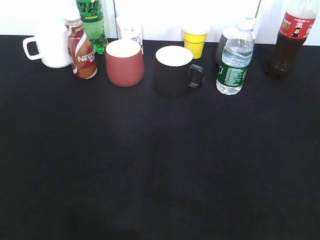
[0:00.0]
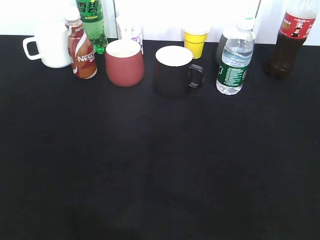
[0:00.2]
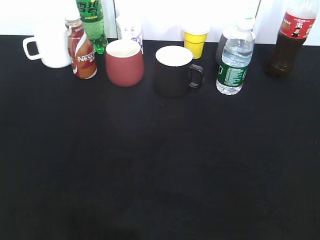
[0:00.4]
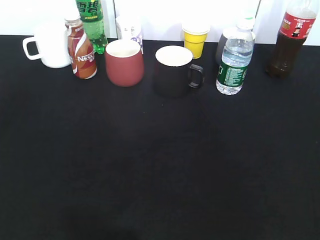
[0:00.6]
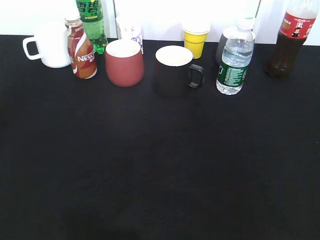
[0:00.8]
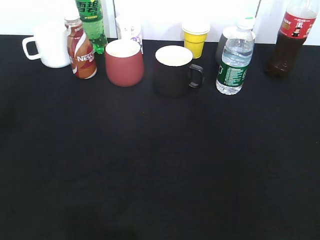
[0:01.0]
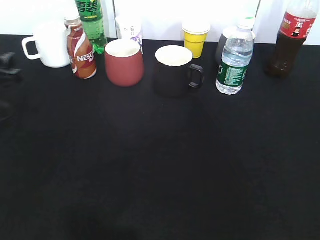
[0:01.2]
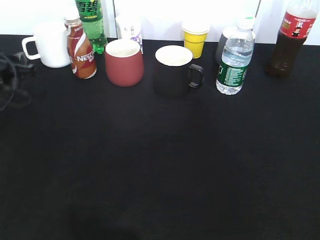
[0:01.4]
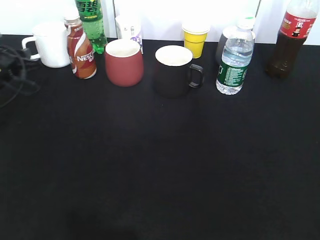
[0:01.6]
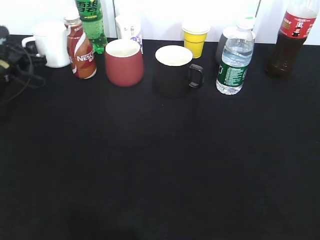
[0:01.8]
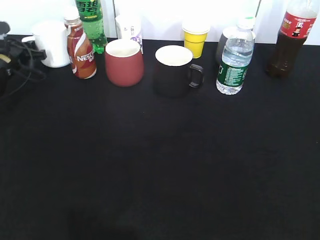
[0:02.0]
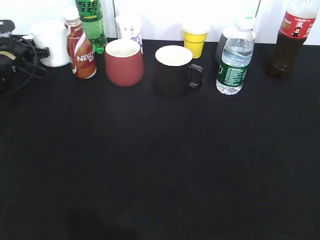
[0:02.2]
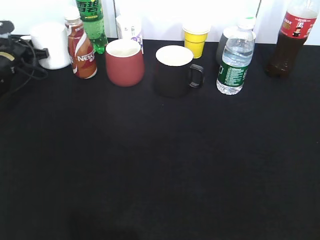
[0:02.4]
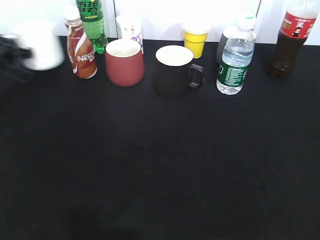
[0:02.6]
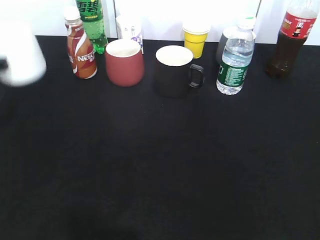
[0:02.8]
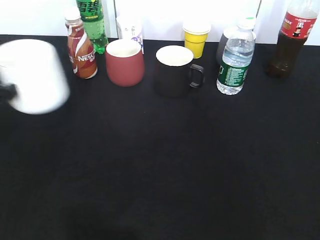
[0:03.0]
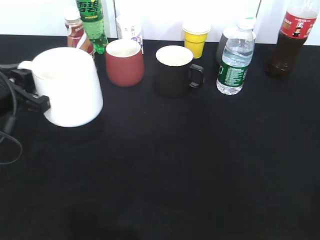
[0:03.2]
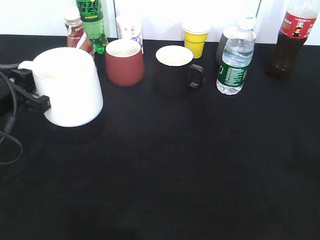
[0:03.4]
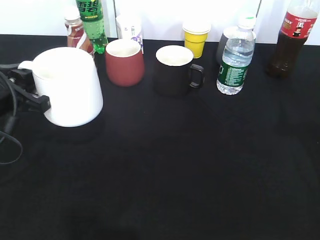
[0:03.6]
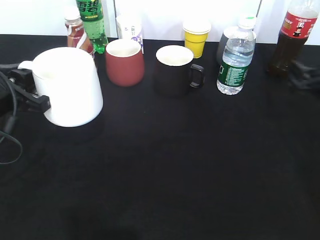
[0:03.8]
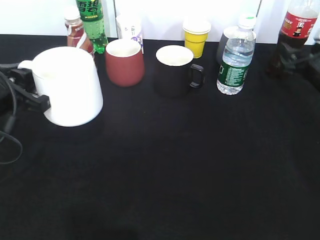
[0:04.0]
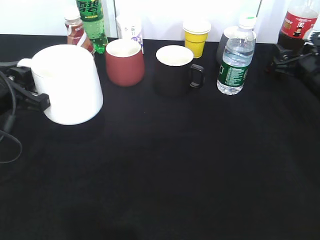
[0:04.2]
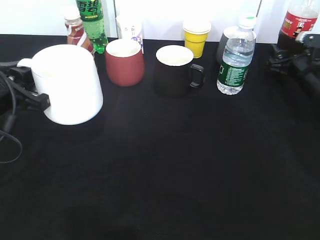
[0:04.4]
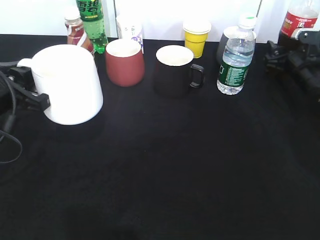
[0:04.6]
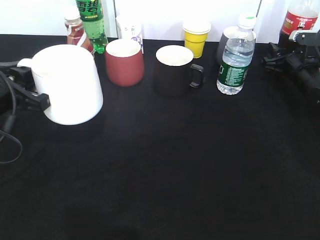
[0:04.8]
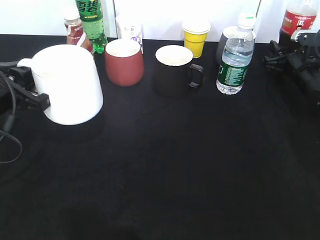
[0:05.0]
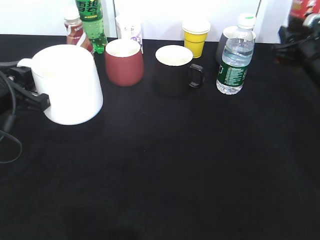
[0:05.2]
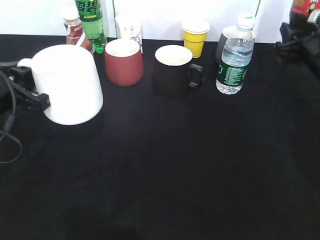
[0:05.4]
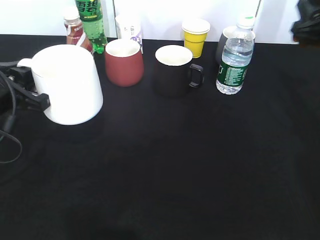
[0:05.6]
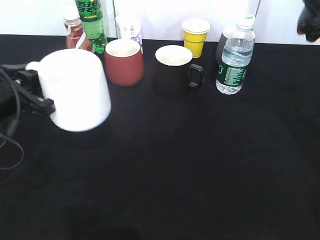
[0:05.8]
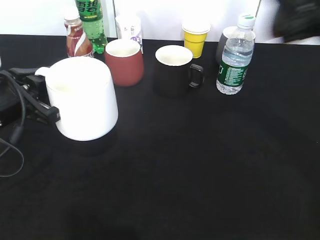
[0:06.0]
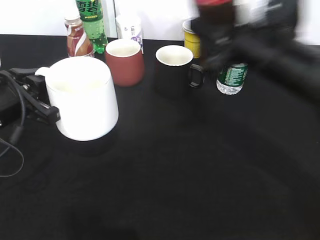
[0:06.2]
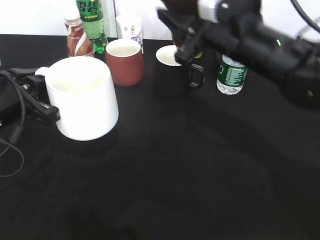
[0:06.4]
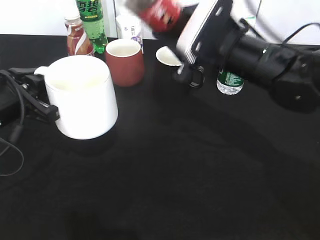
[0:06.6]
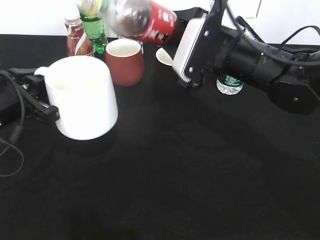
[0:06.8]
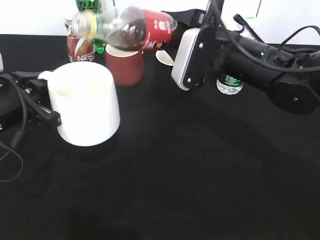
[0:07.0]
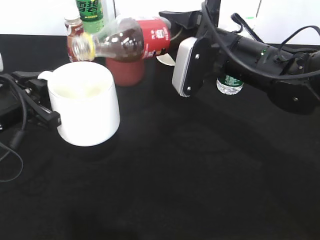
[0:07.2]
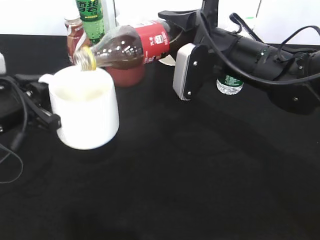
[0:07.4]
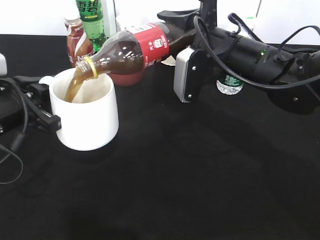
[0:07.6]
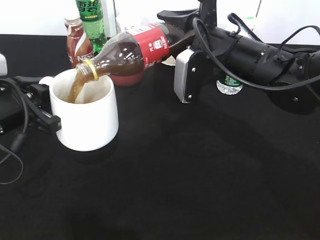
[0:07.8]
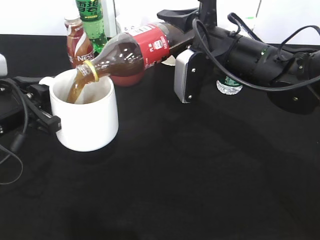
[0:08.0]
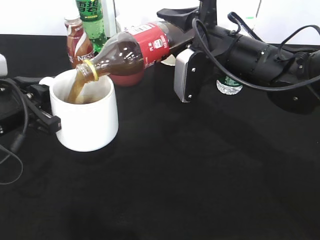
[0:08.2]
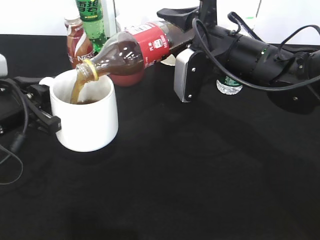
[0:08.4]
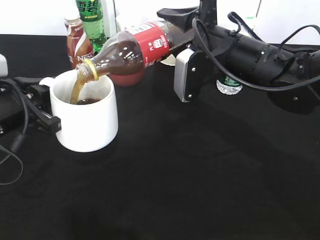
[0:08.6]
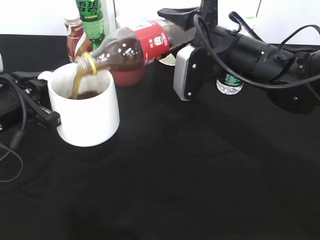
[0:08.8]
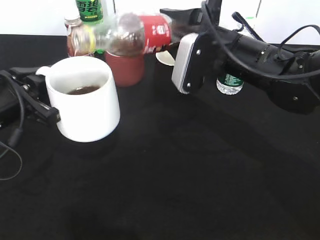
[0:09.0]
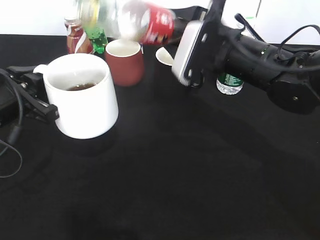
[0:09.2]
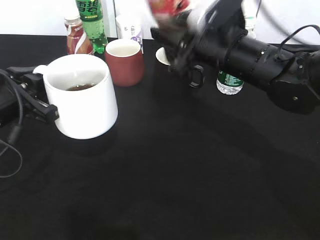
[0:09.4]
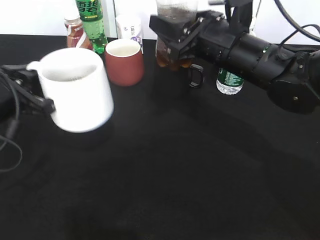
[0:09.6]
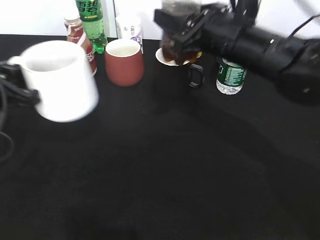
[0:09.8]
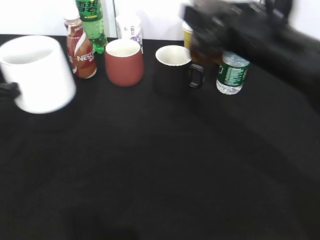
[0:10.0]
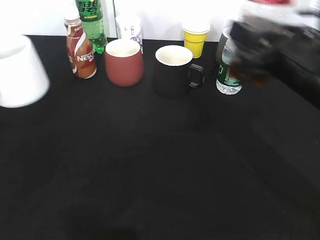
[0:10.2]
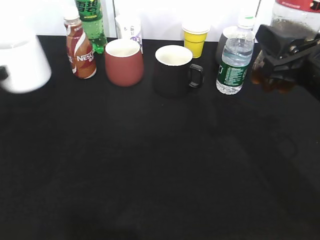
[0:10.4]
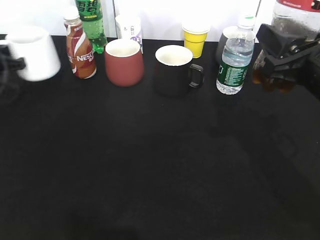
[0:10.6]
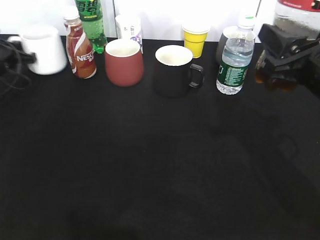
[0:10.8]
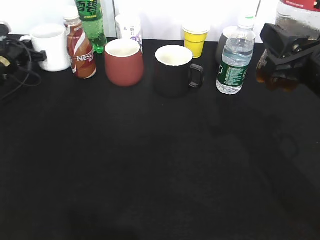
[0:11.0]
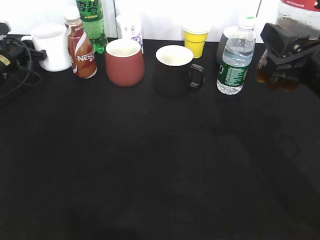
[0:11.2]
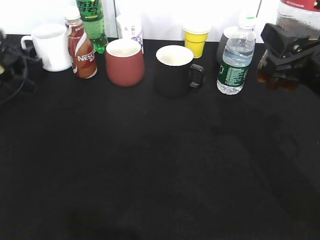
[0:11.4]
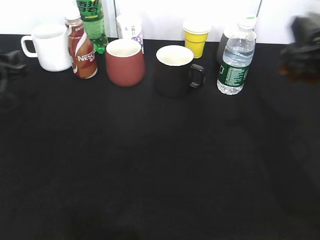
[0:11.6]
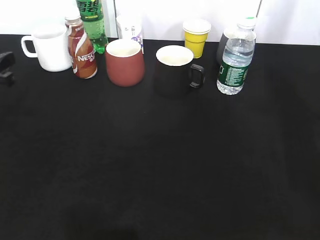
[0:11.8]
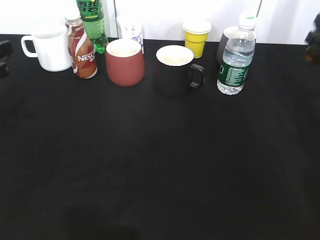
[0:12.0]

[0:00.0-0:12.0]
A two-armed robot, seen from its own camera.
Step, 0:00.0 to 0:02.2: Grasp the white cup with left gripper.
Step, 0:02.4 to 0:03.4: Lift the white cup with left gripper.
Step, 0:03.6 to 0:05.0: Grasp the bottle with cola with right gripper.
Step, 0:05.2 to 0:09.0: Pour the cola from bottle to cup with right gripper.
Step, 0:09.4 to 0:11.4: Place the white cup on the table with left gripper.
0:00.0 to 0:01.6: The left gripper goes about 40 cm forward, and closes its fingers.
0:01.6 to 0:03.0: The left gripper shifts some 15 cm backward, and closes its fingers.
0:03.0 to 0:04.4: The right gripper heads forward and downward, covering approximately 50 cm, and opens.
0:04.4 to 0:06.0: The right gripper travels upward, backward and to the left by about 25 cm, and closes.
0:06.0 to 0:07.6: The right gripper moves to the left, about 10 cm.
0:07.6 to 0:09.0: The grippers make only small movements.
0:09.0 to 0:10.4: The right gripper shifts roughly 15 cm to the right and backward. The left gripper moves to the left and forward, approximately 15 cm.
0:10.4 to 0:12.0: The left gripper goes forward and returns, about 15 cm each way, and opens its fingers; the right gripper moves forward and to the right, roughly 15 cm.

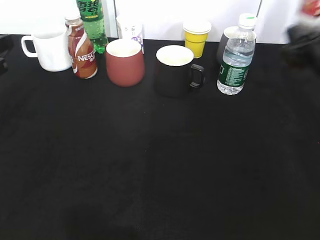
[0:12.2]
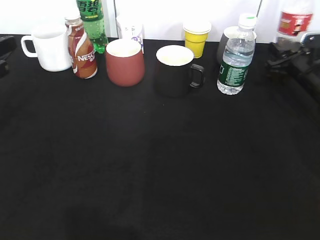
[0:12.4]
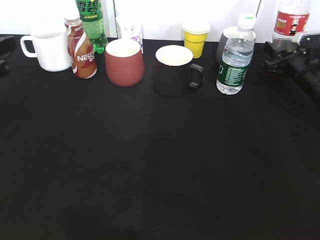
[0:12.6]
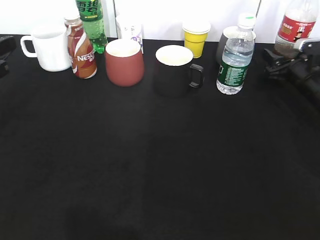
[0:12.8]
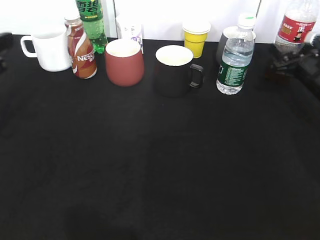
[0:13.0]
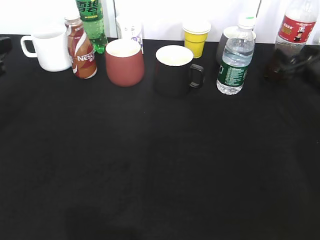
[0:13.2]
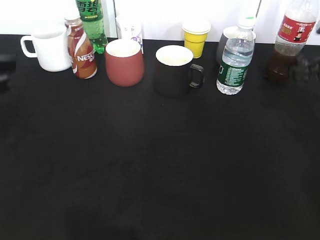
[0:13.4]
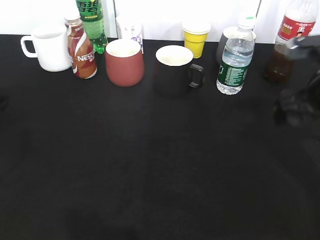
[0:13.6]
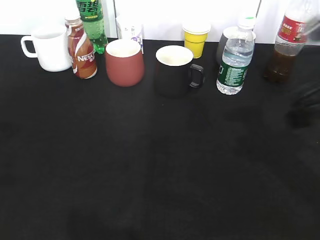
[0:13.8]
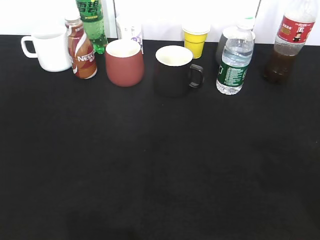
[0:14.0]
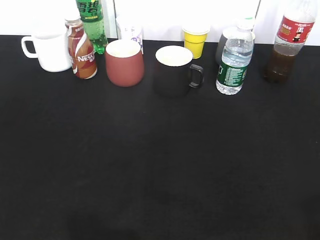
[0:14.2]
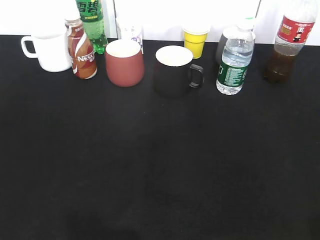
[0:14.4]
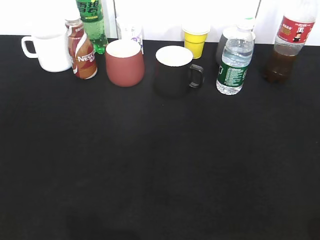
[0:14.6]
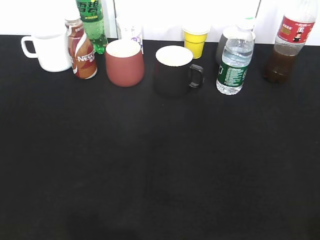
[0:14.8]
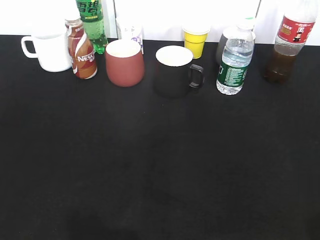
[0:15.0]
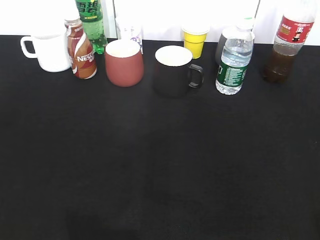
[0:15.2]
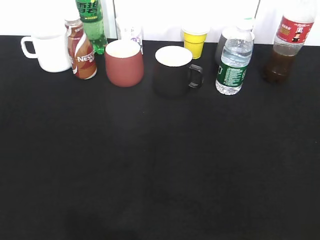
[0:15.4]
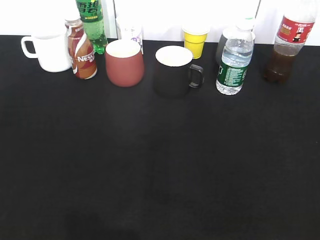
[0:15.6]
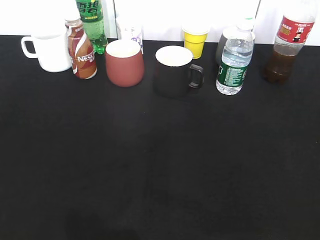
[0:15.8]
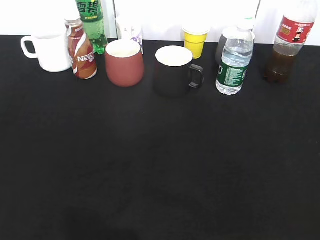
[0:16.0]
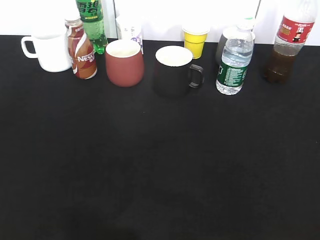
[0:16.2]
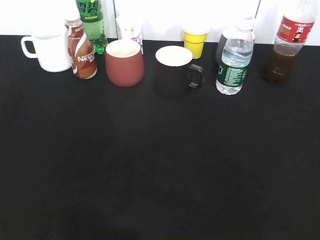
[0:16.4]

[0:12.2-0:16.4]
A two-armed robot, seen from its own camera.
Step, 0:12.2 to 0:13.4: Place the cola bottle on the table with right gripper.
0:12.2 to 0:13.6: The right gripper shifts some 20 cm backward, to the left and upward, and opens.
0:13.6 to 0:15.0: Both grippers move backward, some 20 cm.

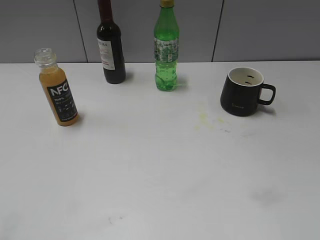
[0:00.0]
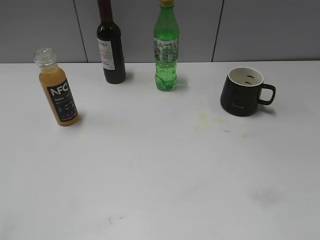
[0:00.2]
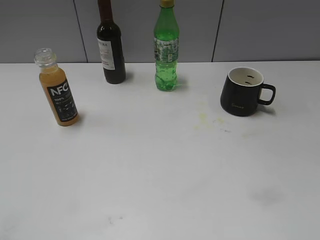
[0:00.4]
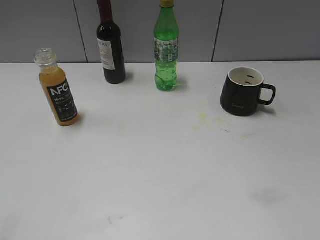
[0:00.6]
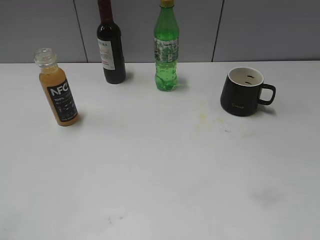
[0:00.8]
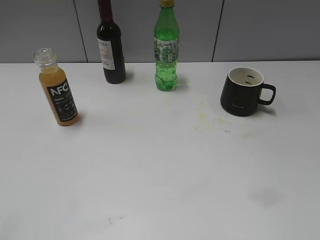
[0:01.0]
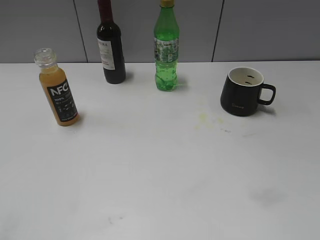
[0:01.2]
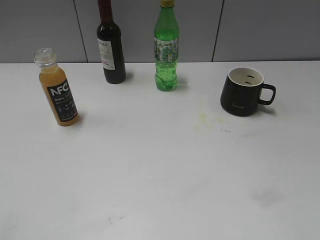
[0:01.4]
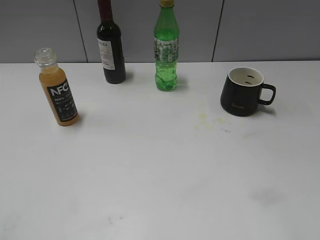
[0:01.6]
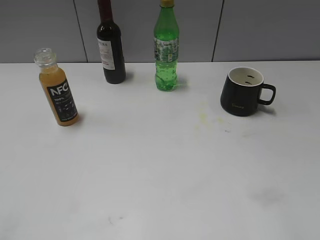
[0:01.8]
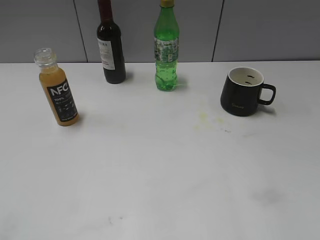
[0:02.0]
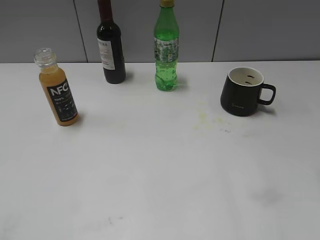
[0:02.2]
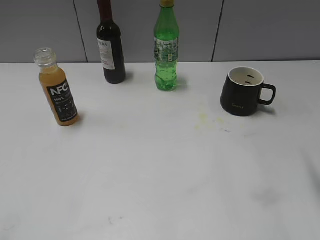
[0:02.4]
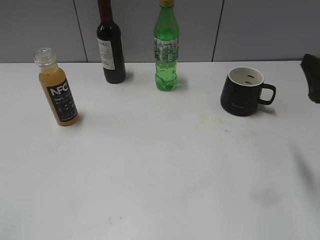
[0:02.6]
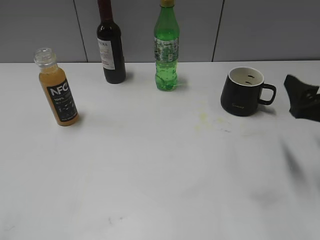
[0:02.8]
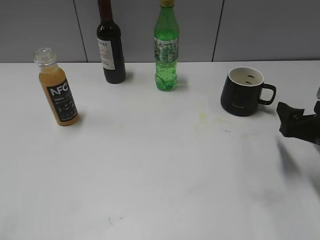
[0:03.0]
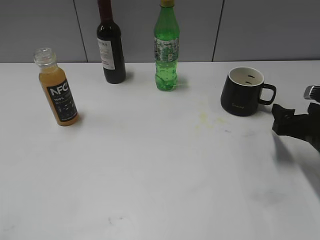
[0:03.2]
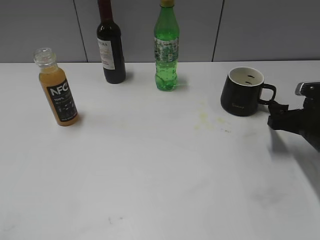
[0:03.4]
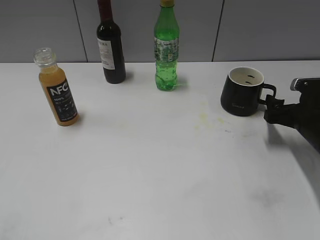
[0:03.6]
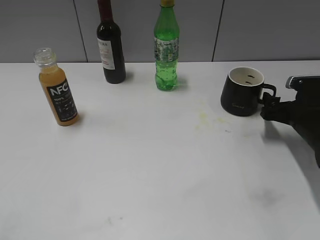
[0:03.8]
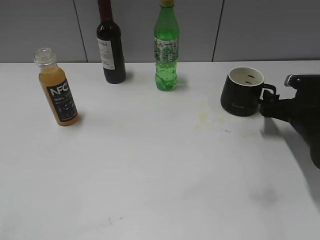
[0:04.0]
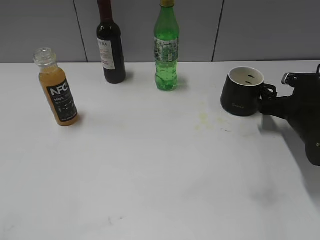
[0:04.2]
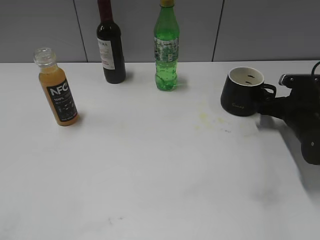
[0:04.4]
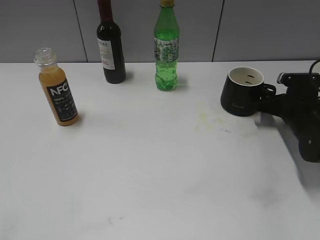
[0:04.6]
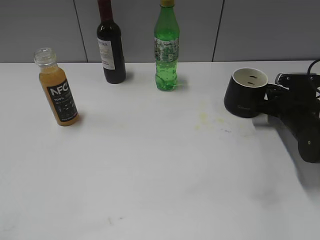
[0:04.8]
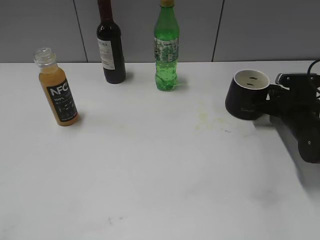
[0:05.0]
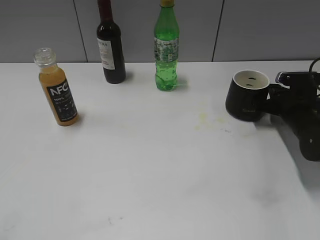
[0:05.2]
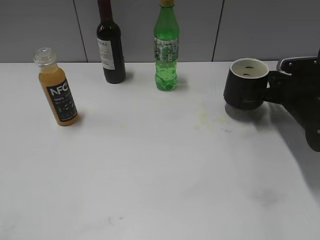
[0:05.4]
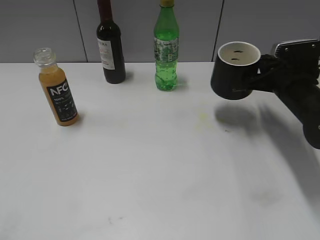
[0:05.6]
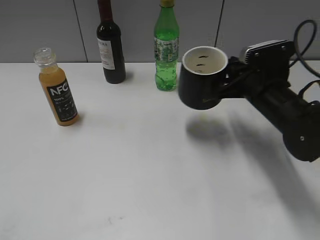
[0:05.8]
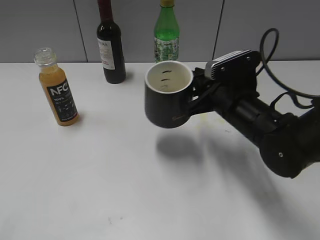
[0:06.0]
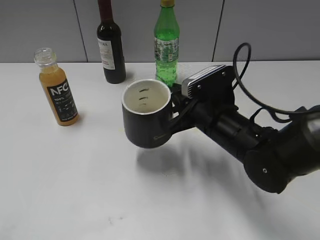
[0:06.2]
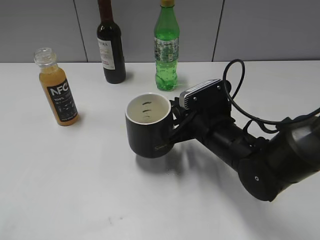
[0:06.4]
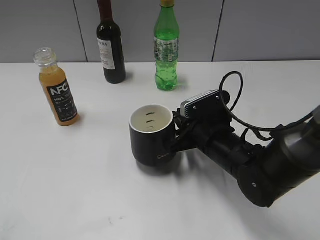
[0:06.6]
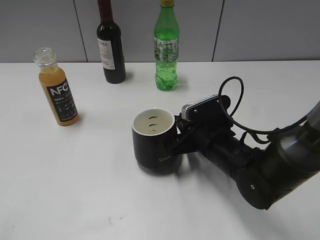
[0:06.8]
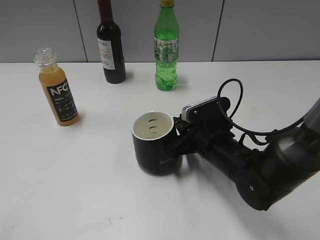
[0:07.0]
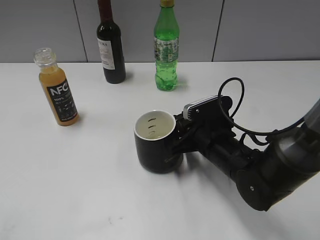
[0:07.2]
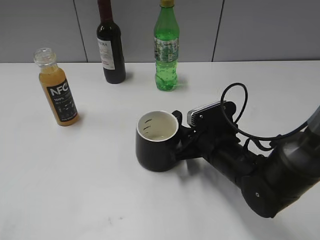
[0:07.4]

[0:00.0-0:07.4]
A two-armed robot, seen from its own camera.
Step, 0:02.6 to 0:05.0: Grasp the black cup with right gripper.
Step, 0:05.4 to 0:07.4: Place the black cup in the center of view with right gripper.
0:01.4 to 0:03.0: The right gripper moves forward and downward, about 25 cm.
0:03.0 to 0:04.4: The right gripper shifts approximately 15 cm forward and downward.
0:04.4 to 0:06.0: The right gripper moves to the left and upward, roughly 15 cm, and closes up.
0:06.0 to 0:07.4: The right gripper moves downward, about 10 cm.
